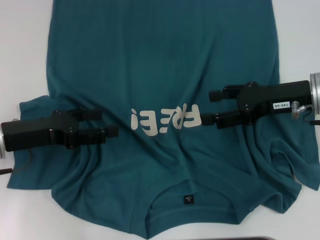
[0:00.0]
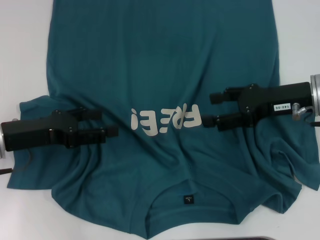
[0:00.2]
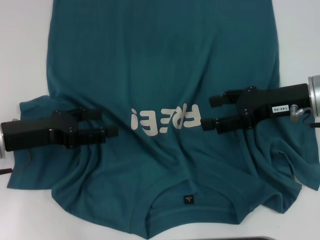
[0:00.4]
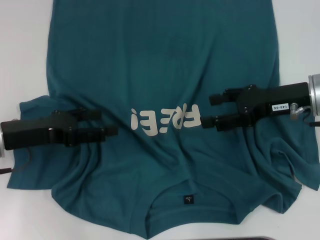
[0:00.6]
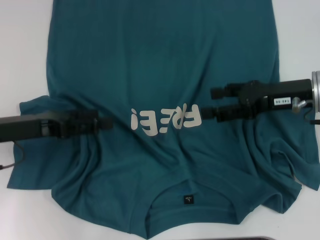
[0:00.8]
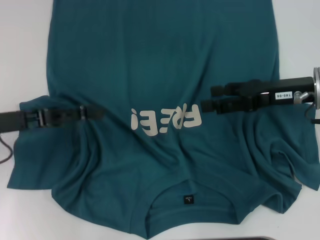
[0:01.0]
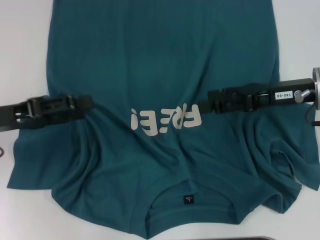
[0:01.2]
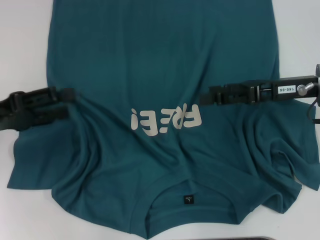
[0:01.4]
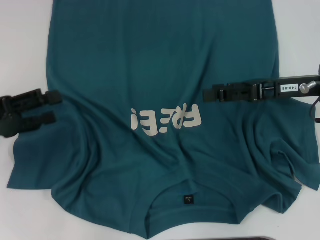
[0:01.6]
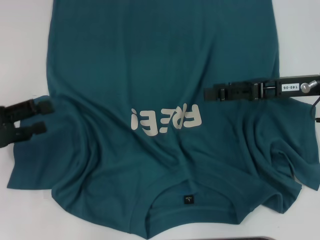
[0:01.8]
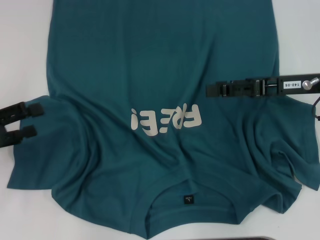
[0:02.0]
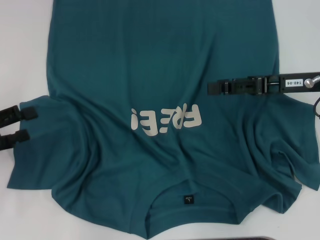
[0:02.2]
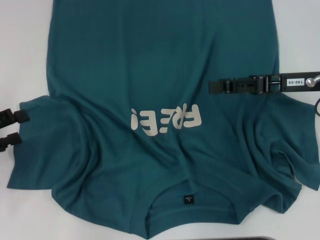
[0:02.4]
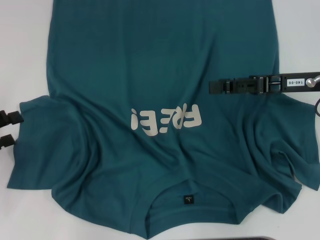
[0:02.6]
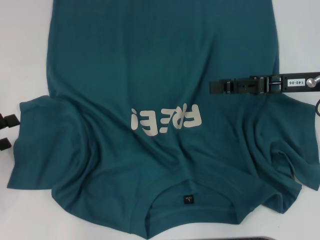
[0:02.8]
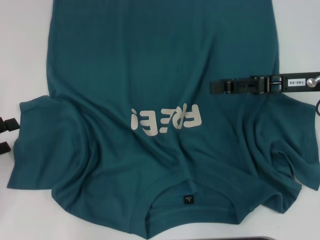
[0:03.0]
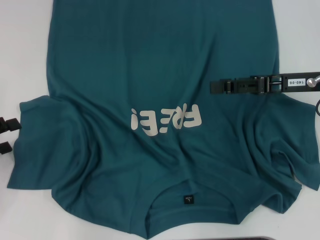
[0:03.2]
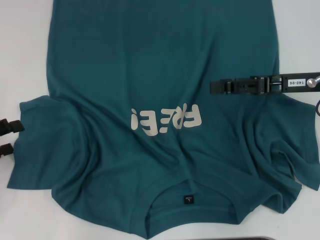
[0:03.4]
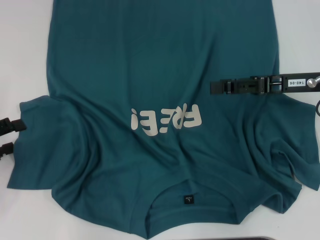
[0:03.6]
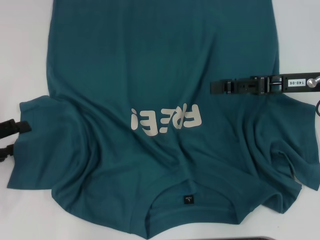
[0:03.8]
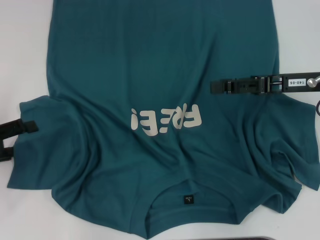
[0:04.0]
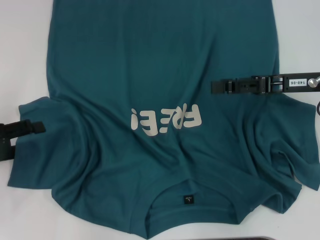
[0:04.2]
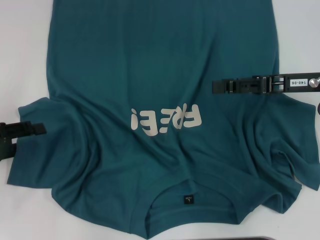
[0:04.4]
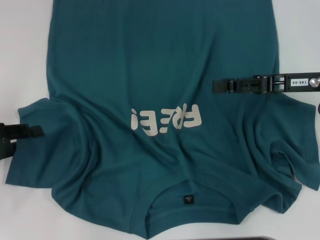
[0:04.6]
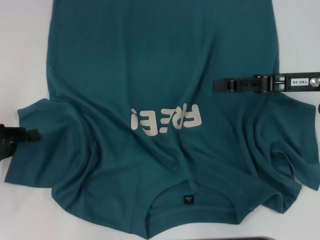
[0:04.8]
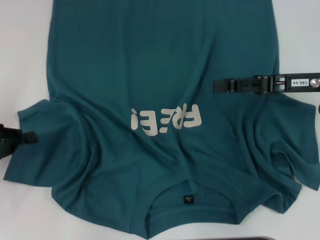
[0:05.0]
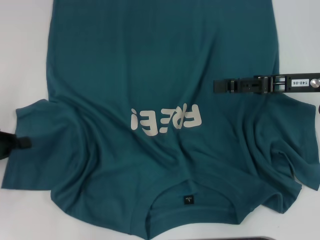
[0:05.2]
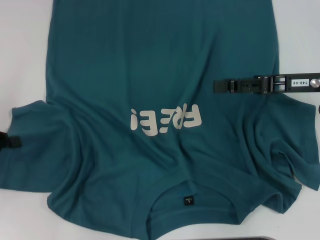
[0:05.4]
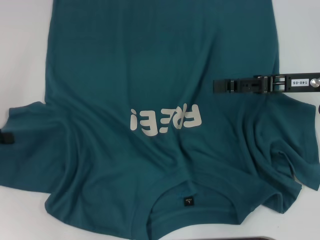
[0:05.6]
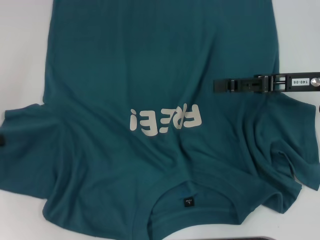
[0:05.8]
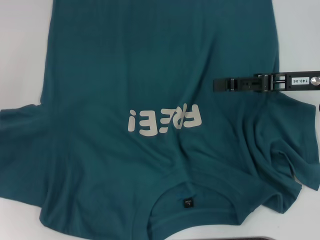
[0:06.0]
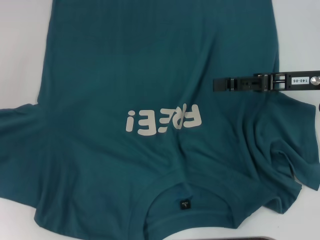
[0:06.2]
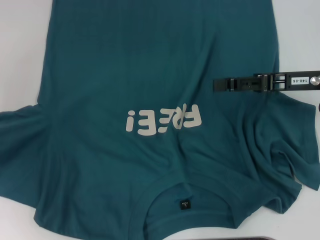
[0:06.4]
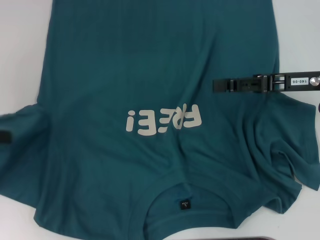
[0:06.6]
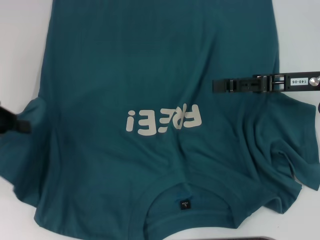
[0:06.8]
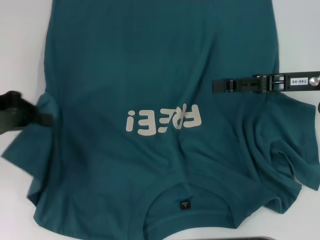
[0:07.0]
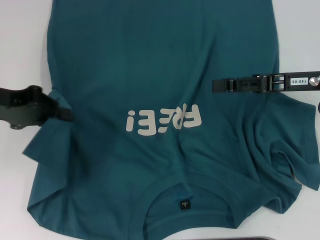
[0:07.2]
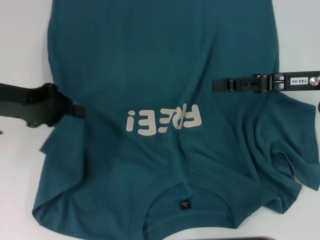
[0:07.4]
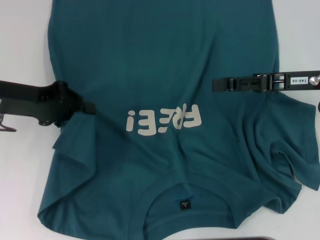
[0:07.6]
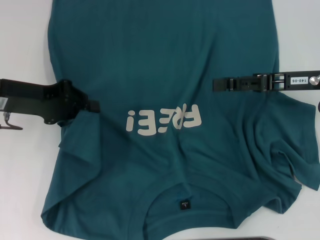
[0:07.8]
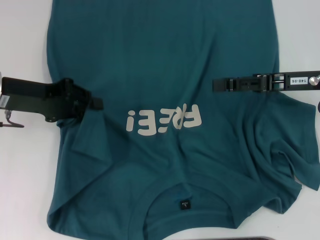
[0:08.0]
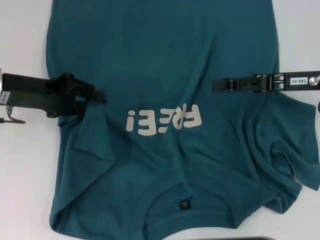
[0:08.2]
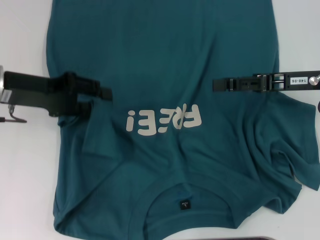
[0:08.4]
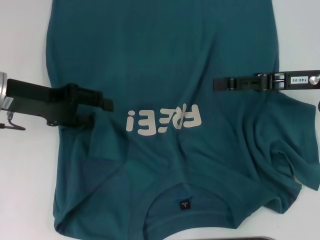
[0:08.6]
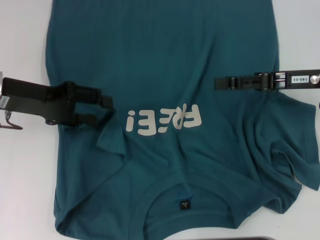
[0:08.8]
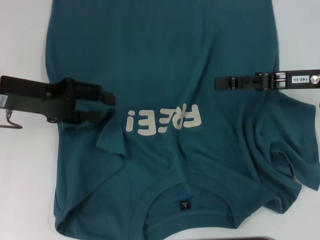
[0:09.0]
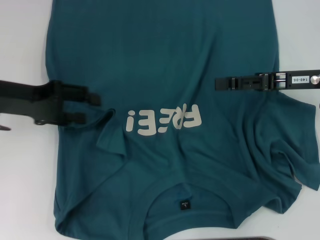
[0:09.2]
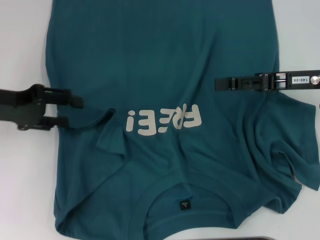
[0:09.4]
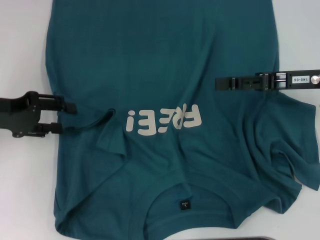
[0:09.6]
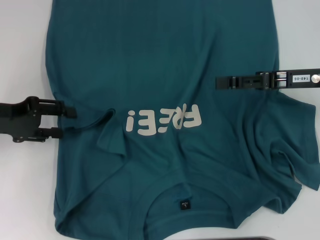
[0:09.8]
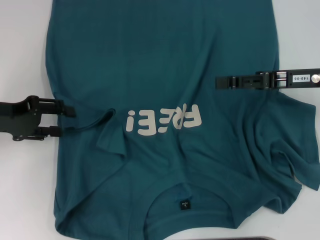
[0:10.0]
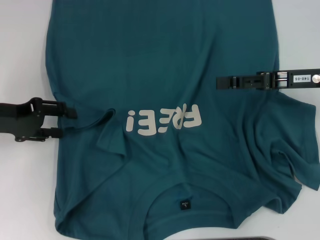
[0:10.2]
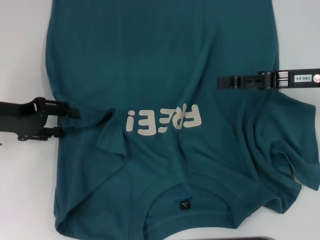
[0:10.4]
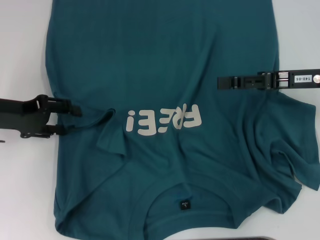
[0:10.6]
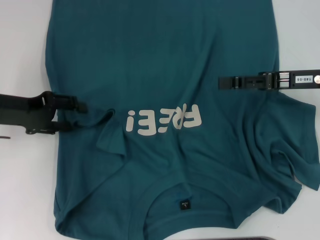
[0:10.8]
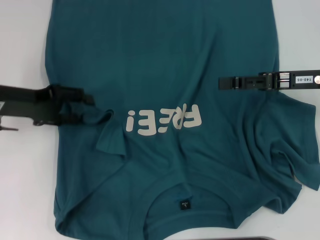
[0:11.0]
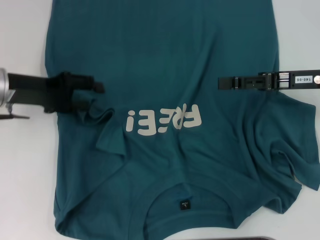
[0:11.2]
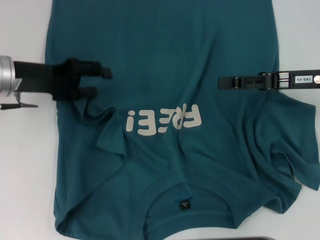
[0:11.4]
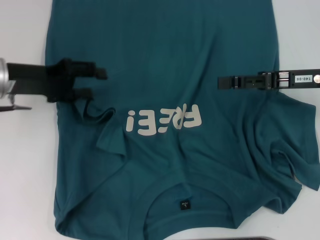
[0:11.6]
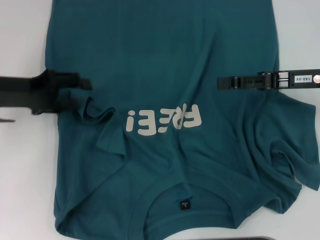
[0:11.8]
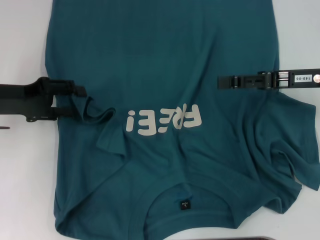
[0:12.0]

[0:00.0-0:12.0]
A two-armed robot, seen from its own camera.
0:00.0 to 0:01.6: The left gripper is displaced to the left by approximately 5 cm.
0:01.6 to 0:03.0: The left gripper shifts roughly 5 cm to the left.
0:03.0 to 0:04.4: The grippers make only small movements.
0:04.4 to 0:06.0: The left gripper moves upward, some 5 cm, and closes up.
0:06.0 to 0:07.6: The left gripper is displaced to the right and forward by approximately 15 cm.
0:07.6 to 0:09.0: The left gripper opens up.
0:09.0 to 0:10.4: The left gripper moves some 5 cm.

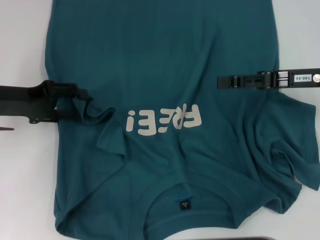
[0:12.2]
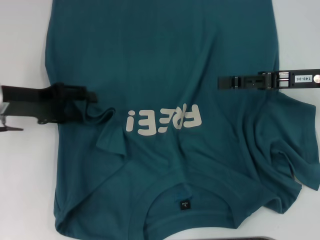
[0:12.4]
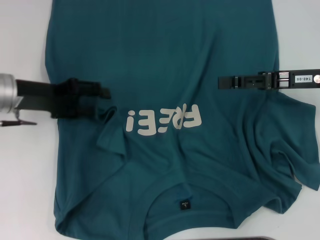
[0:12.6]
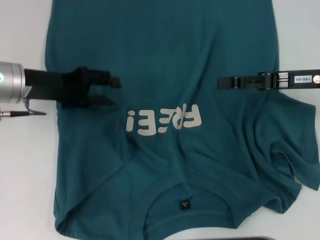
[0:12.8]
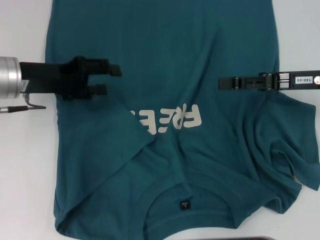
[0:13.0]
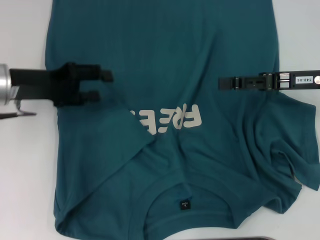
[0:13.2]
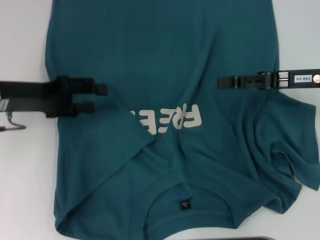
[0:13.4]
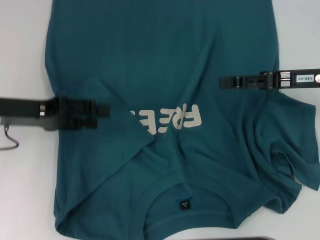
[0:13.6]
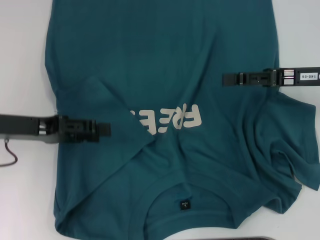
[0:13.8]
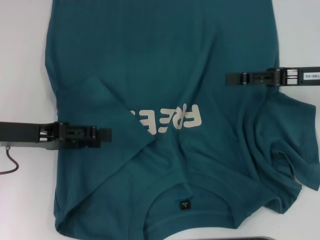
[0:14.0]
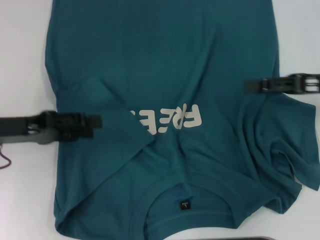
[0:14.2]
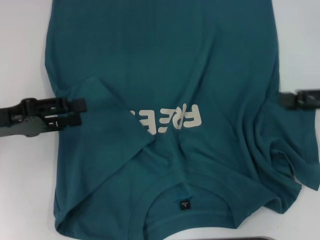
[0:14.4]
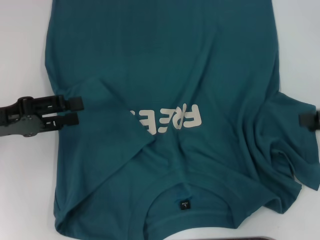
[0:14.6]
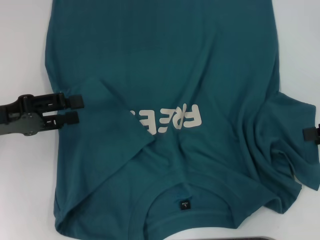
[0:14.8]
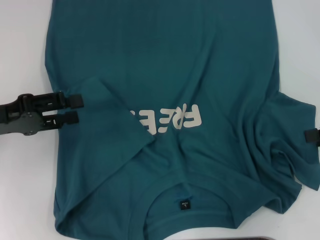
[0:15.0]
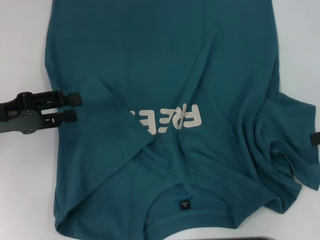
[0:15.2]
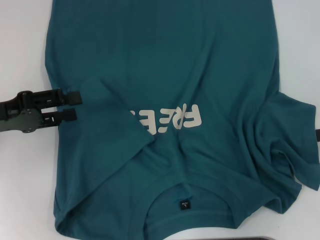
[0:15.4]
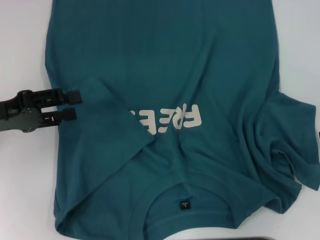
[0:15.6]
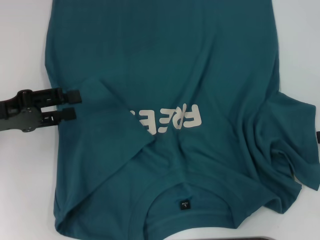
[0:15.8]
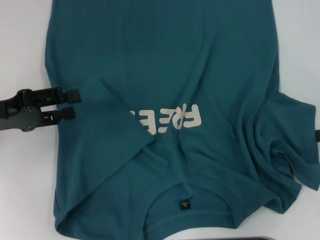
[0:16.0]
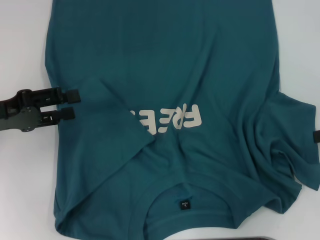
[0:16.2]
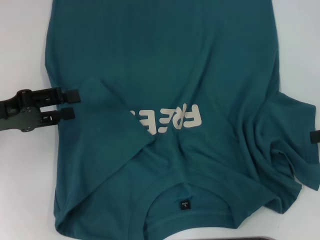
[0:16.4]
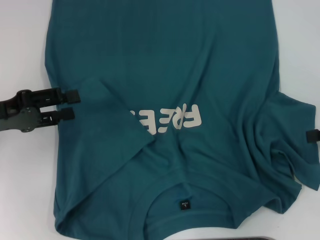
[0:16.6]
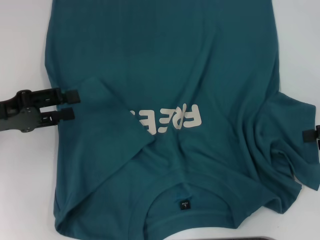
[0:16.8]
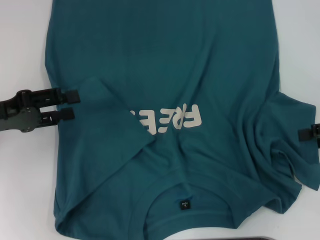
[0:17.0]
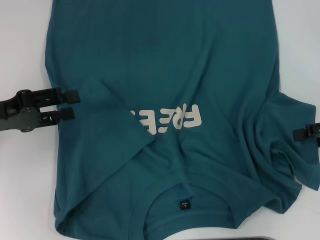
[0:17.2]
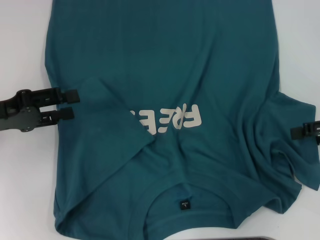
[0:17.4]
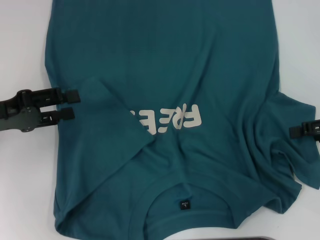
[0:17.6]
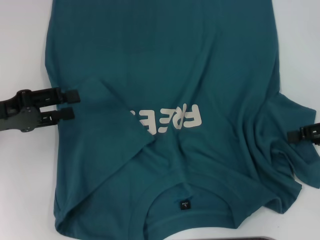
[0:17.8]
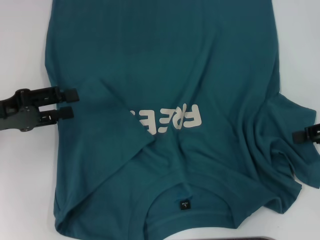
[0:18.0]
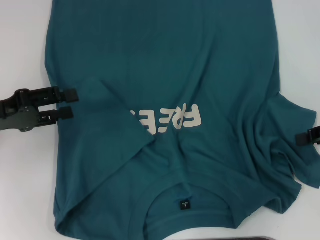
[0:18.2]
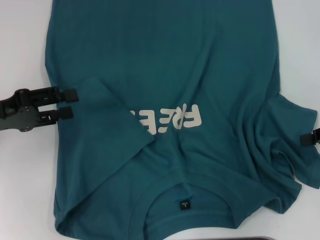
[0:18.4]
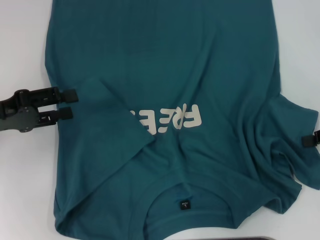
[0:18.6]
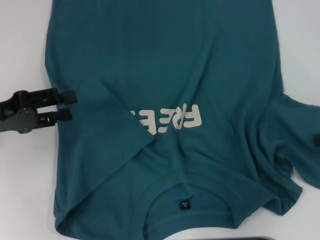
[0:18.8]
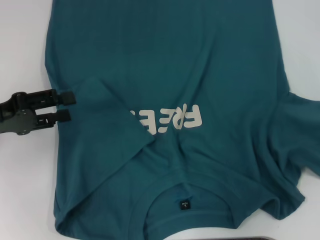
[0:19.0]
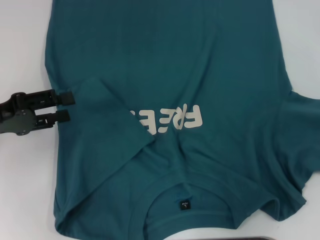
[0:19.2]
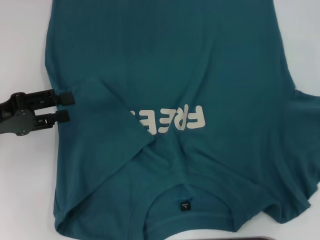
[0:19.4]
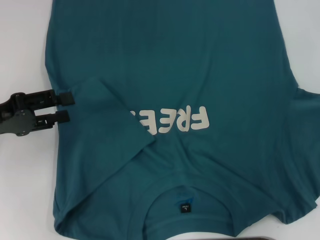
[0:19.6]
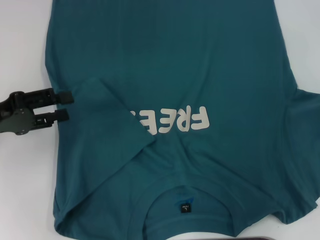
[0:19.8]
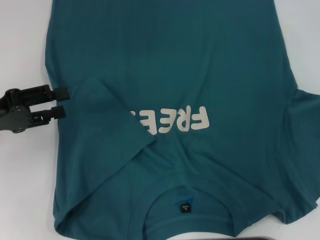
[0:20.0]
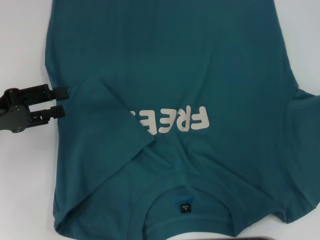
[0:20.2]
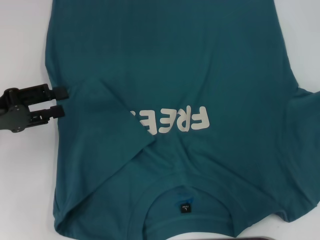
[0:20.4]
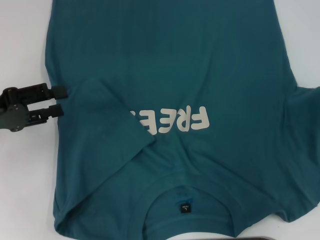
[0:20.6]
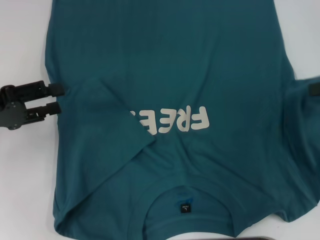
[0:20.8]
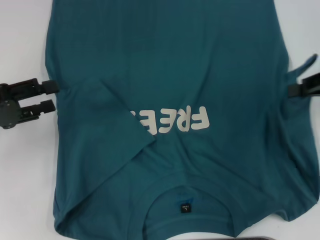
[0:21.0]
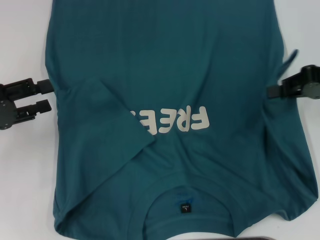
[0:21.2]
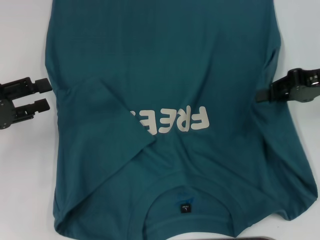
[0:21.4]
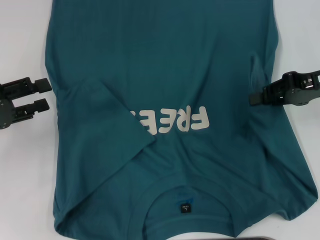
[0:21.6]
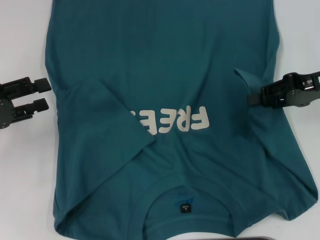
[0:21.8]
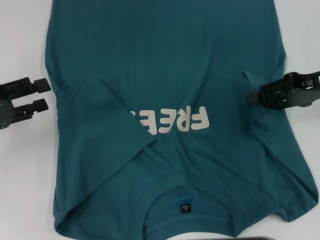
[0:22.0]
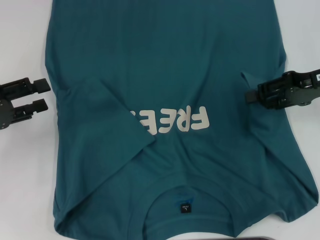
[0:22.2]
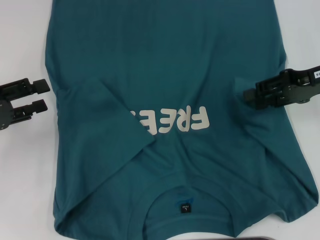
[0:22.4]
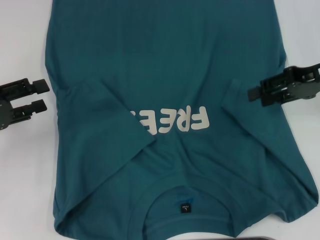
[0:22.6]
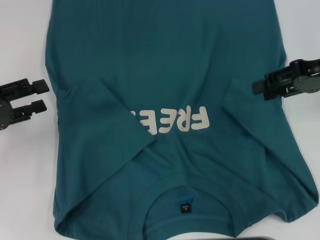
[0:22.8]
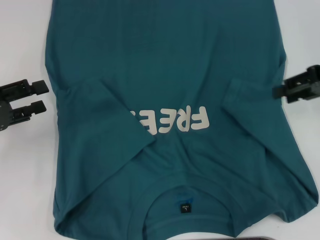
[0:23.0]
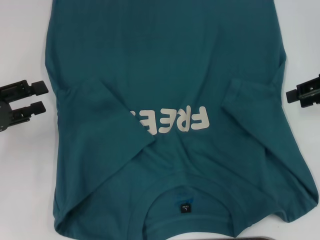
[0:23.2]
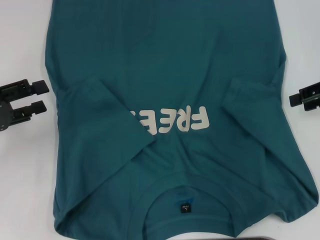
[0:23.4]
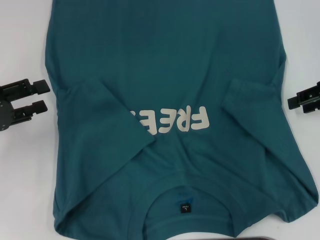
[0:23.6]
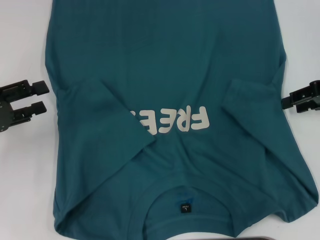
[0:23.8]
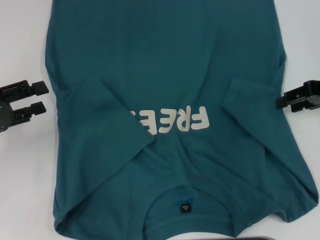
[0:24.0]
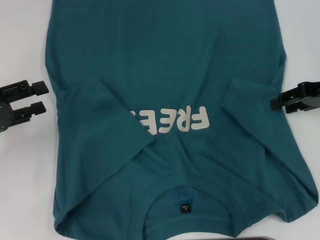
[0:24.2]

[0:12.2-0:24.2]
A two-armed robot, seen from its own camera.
Step, 0:13.2 to 0:22.6: Fold the bottom right sleeve to the right.
0:13.8 to 0:15.2: The right gripper travels to the right and backward by some 10 cm.
0:15.2 to 0:16.6: The grippers make only small movements.
0:16.6 to 0:18.2: The right gripper closes its fingers.
0:18.2 to 0:19.8: The right gripper shifts by about 5 cm, and closes its fingers.
0:19.8 to 0:21.2: The right gripper heads to the left, covering approximately 10 cm.
0:21.2 to 0:22.6: The right gripper opens its fingers.
0:22.6 to 0:24.2: The grippers stay close to where they were, moving slightly.
